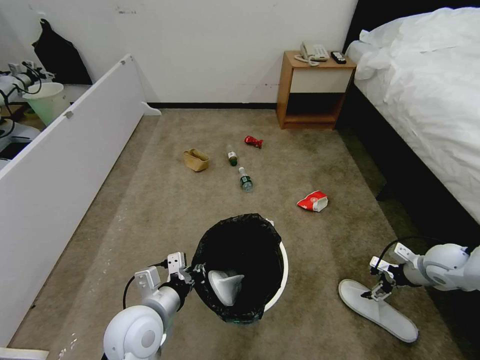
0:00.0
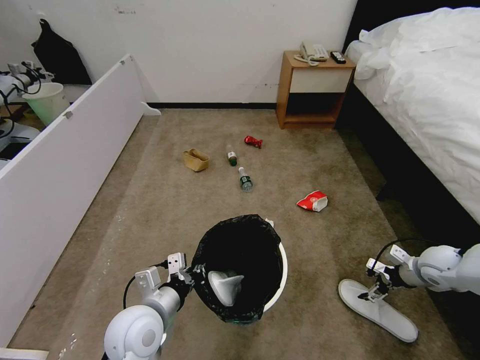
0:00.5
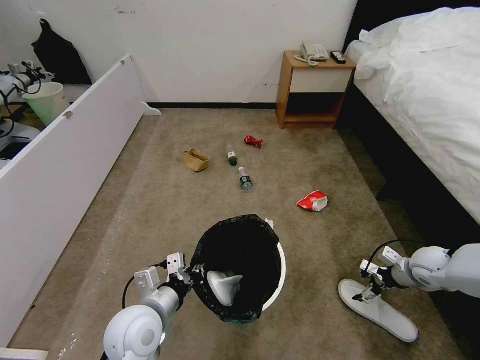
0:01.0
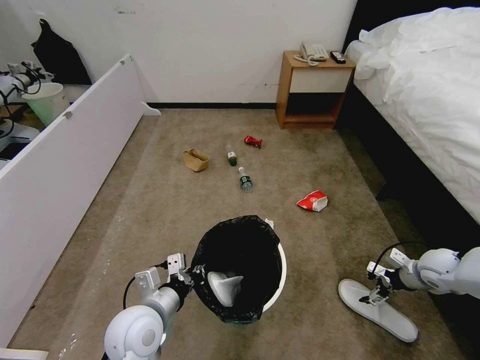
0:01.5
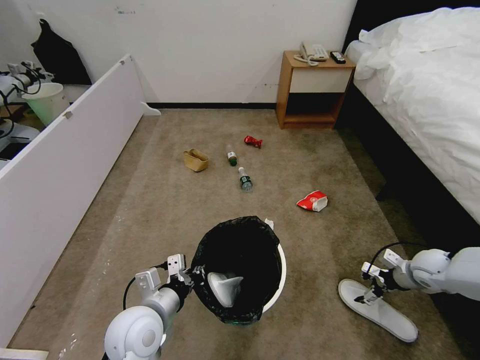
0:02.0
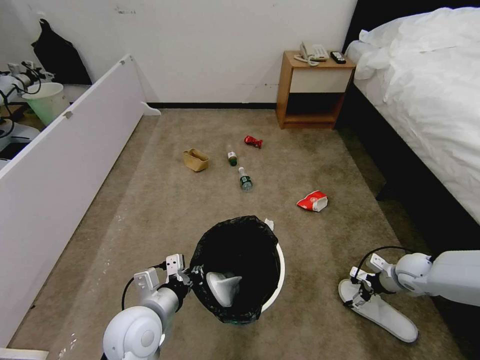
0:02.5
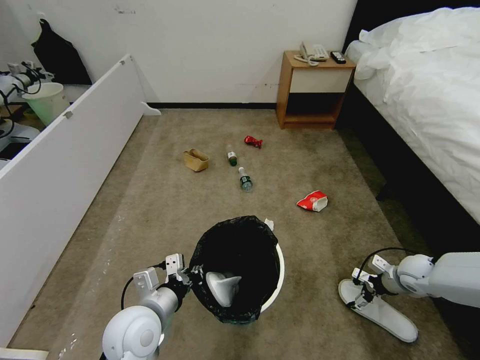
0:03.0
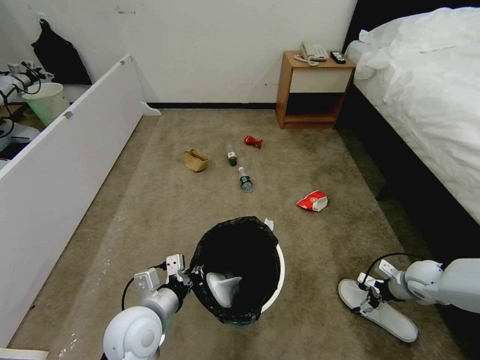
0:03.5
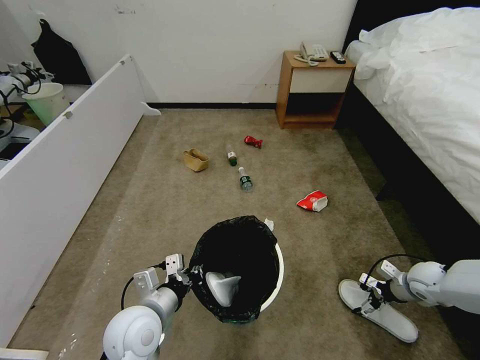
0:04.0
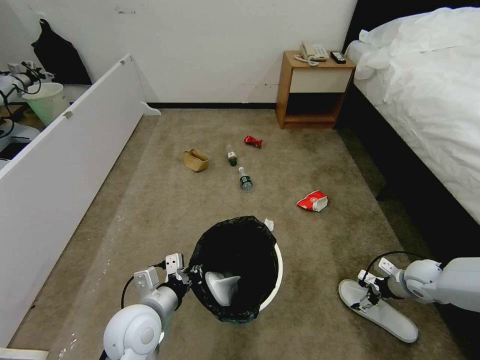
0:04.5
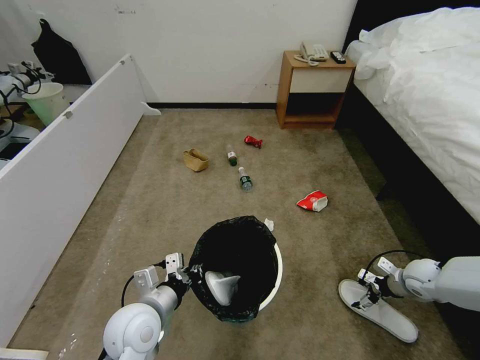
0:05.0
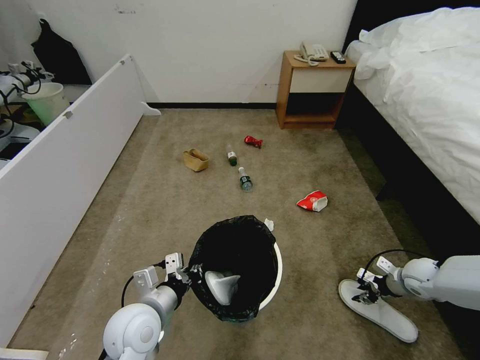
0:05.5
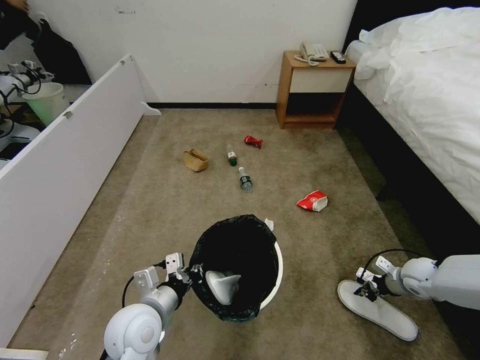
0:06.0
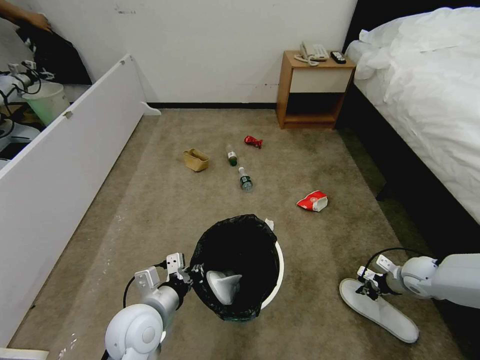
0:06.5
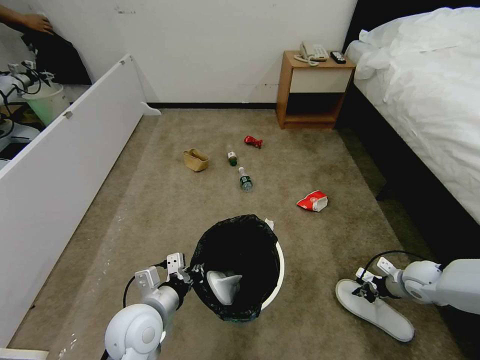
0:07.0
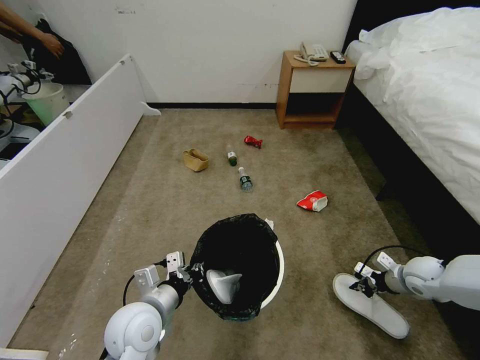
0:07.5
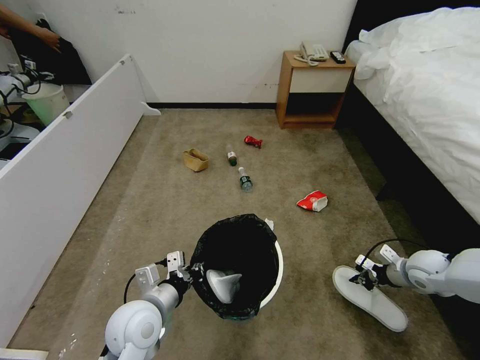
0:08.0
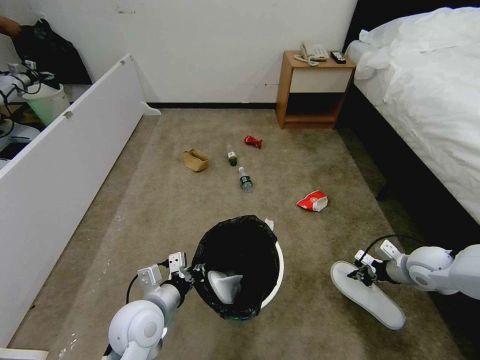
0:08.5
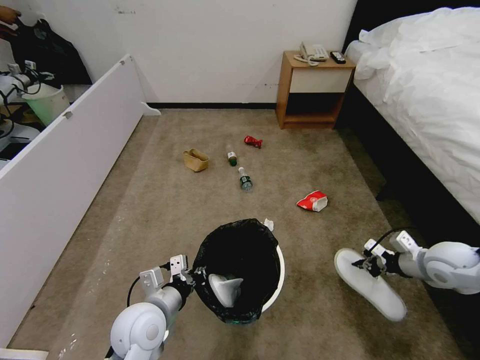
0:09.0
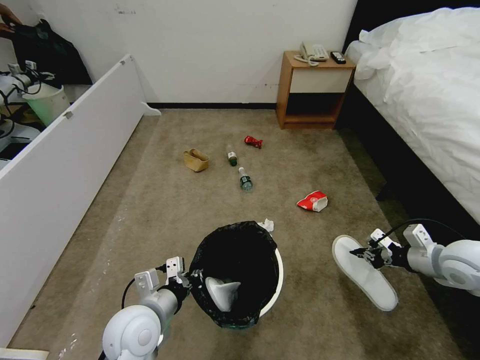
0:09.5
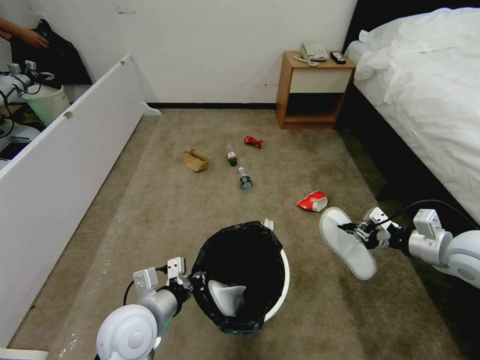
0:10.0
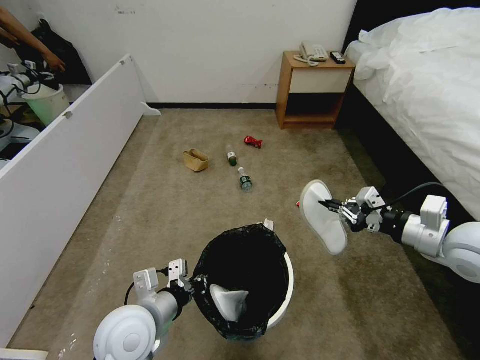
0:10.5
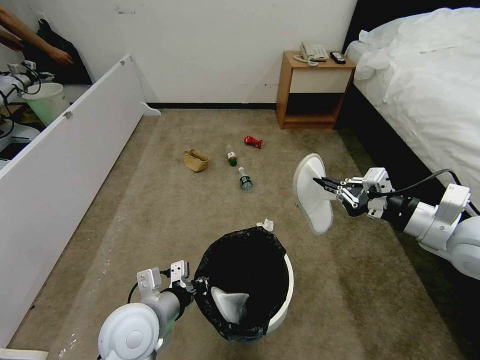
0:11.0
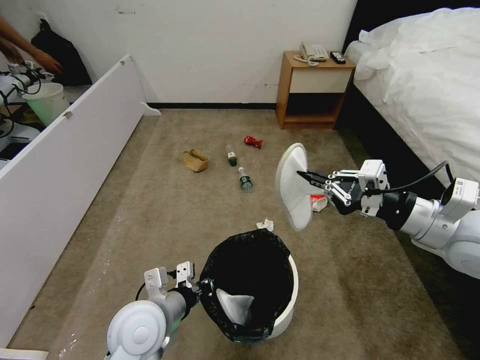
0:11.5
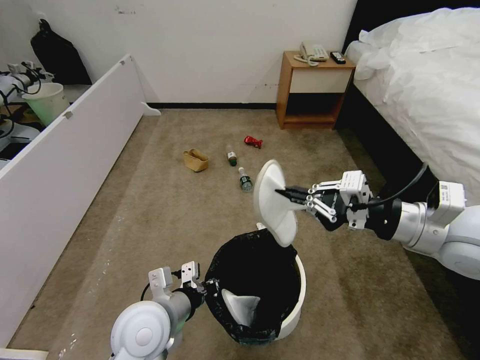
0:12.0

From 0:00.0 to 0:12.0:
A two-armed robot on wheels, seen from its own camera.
Task of the whole recording: Pick up the trash bin, then pick up the garbage from the floor and place it into the trash bin.
From 0:00.0 to 0:02.0: The grippers make only small movements.
From 0:02.0 to 0:04.0: The grippers make only small movements.
From 0:04.0 to 0:06.0: The right gripper closes.
From 0:06.0 to 0:08.0: The right gripper shifts approximately 5 cm upward.
From 0:08.0 to 0:10.0: The right gripper is displaced upward by approximately 15 cm.
From 0:10.0 to 0:12.0: The right gripper shifts about 15 cm to the left and upward.

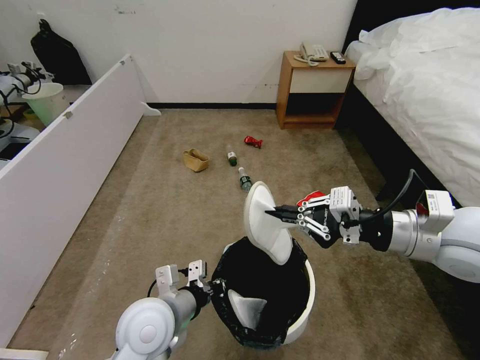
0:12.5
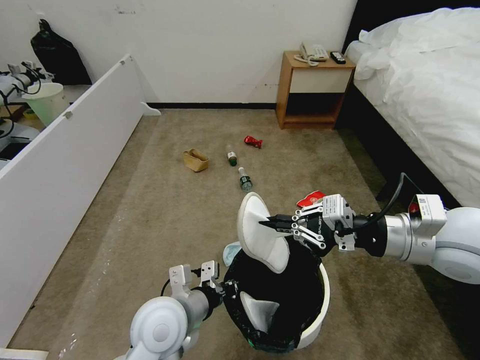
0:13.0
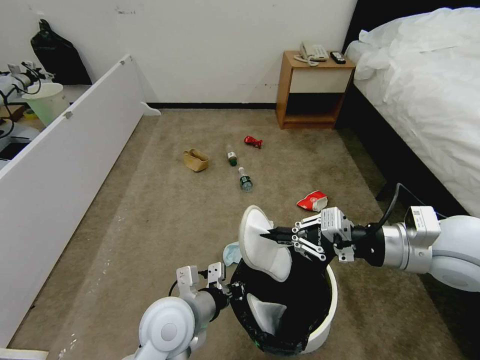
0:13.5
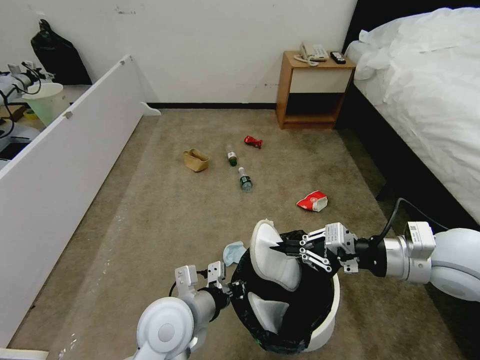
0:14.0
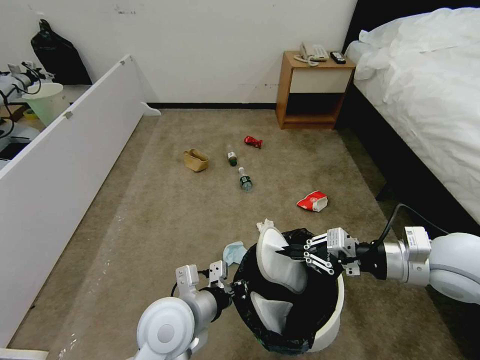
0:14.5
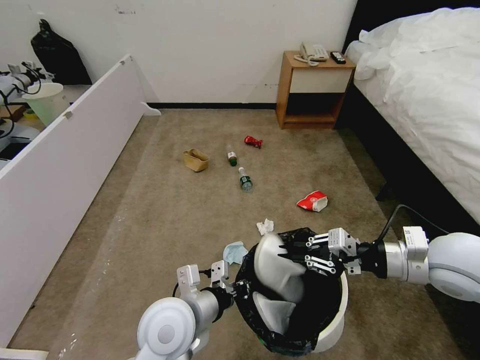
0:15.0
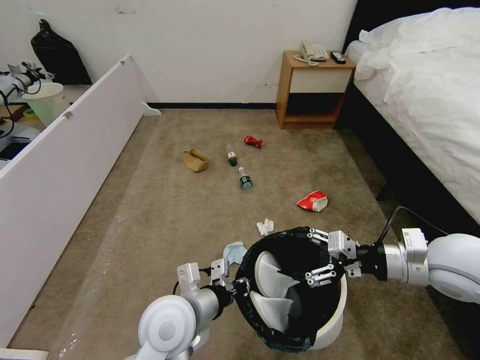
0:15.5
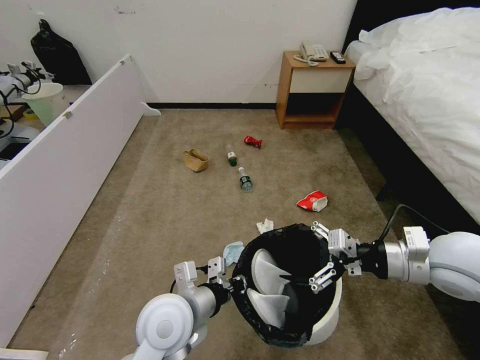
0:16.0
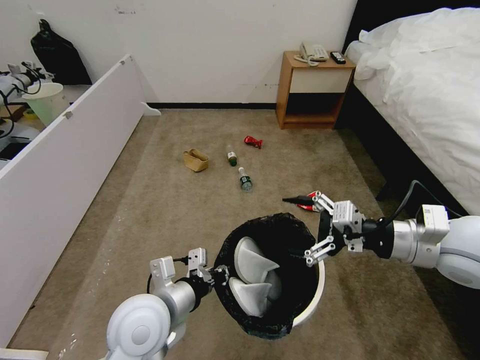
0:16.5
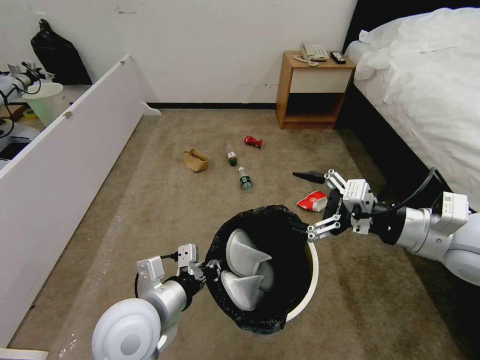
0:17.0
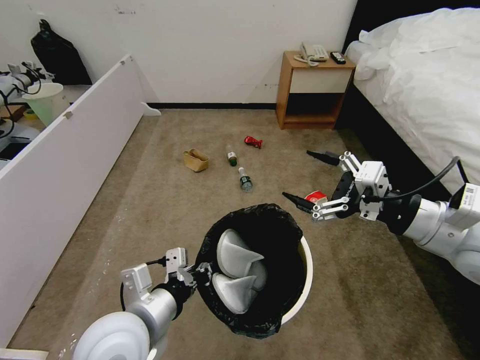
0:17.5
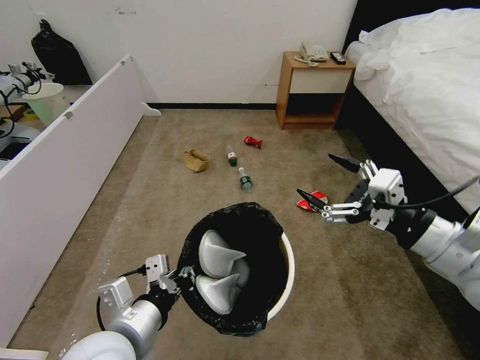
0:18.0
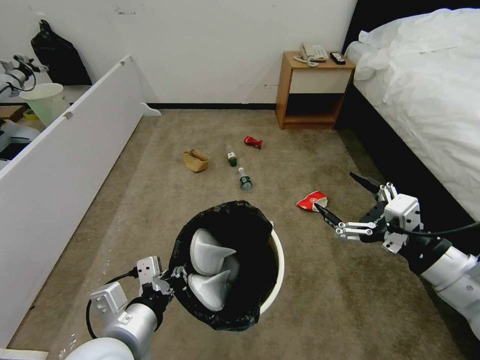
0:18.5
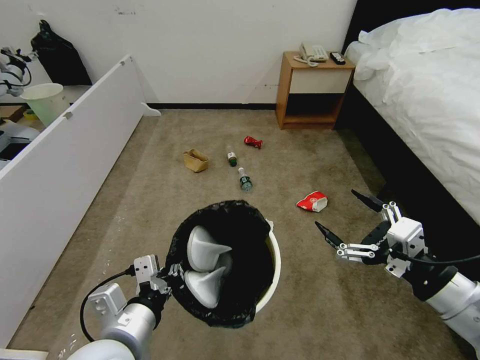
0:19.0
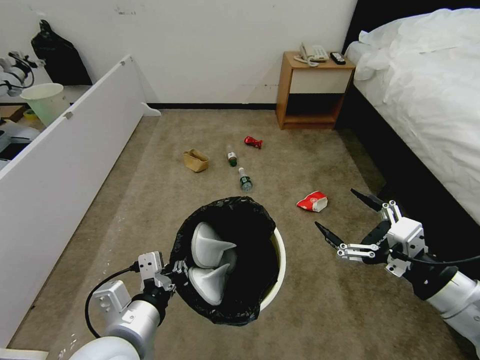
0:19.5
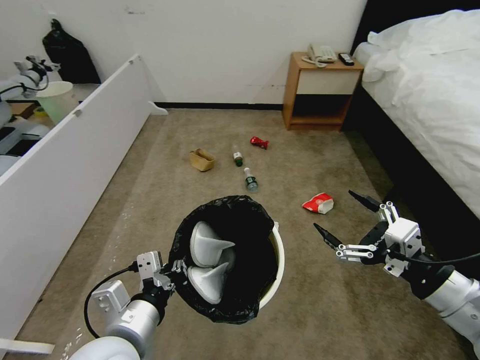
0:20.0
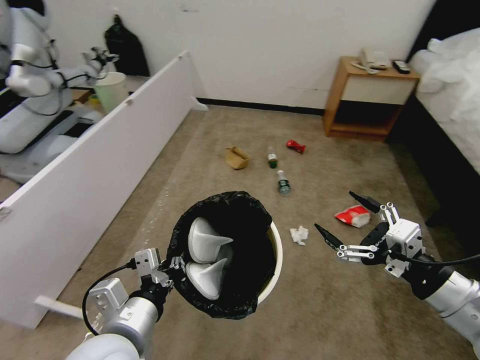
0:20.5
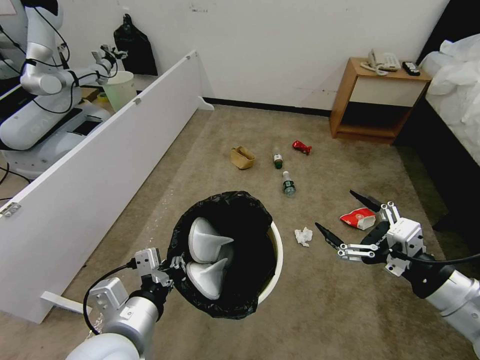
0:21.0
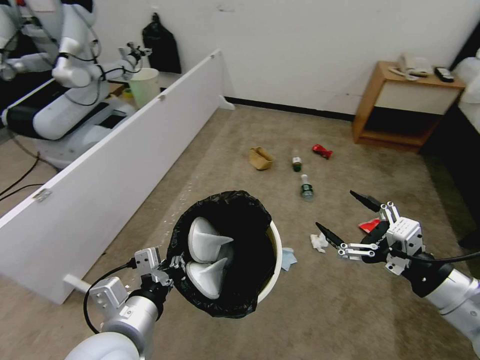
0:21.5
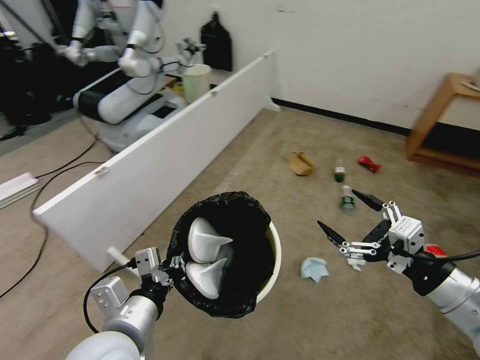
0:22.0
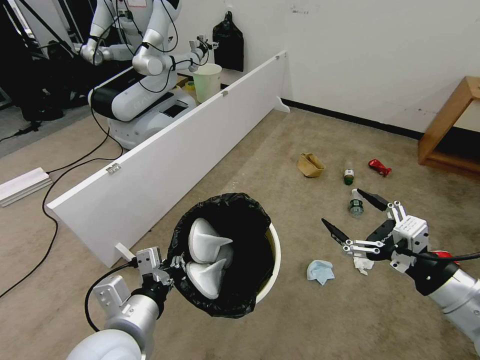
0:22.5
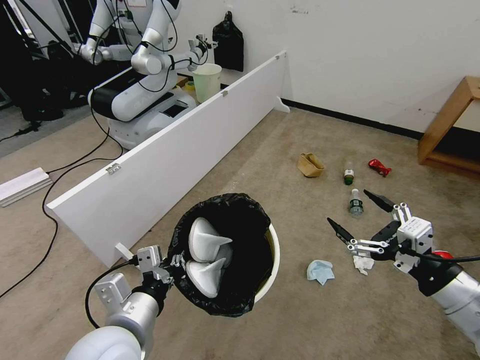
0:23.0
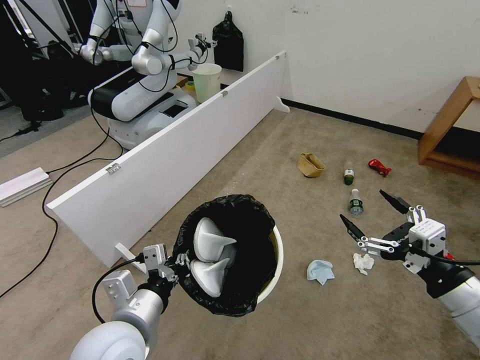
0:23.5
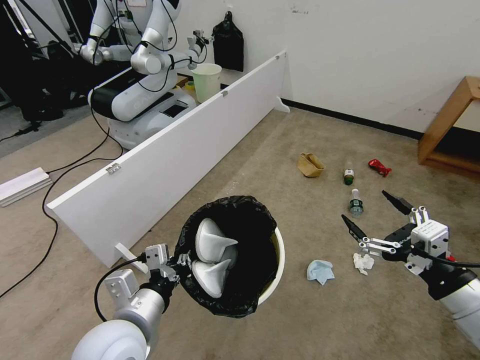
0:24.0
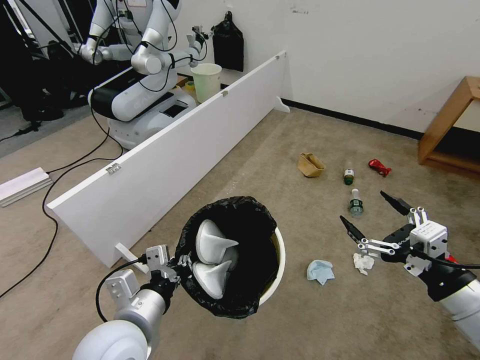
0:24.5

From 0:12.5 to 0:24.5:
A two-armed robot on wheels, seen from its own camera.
Task of the whole recording: Pick up the trash bin, then pick up the garbage from the floor and place it into the trash bin.
From 0:12.5 to 0:14.5: The right gripper goes about 5 cm downward.
From 0:14.5 to 0:16.5: The right gripper opens.
From 0:16.5 to 0:18.5: Both grippers move backward, about 10 cm.
From 0:22.5 to 0:24.5: The grippers stay close to where they were, moving slightly.

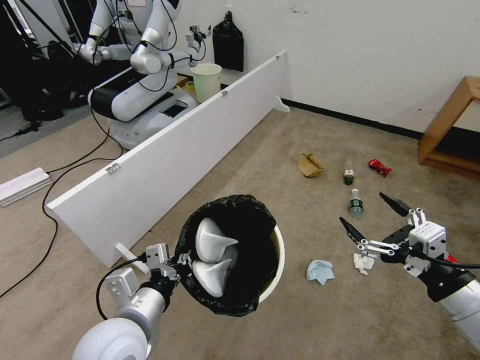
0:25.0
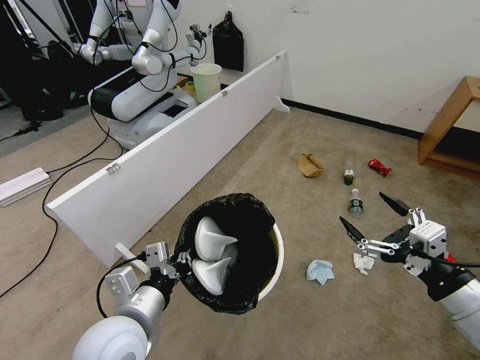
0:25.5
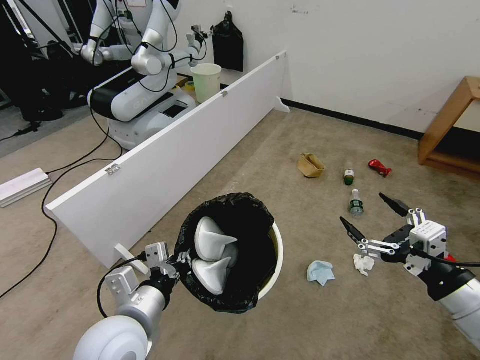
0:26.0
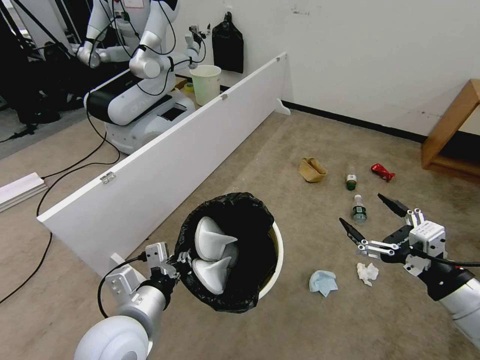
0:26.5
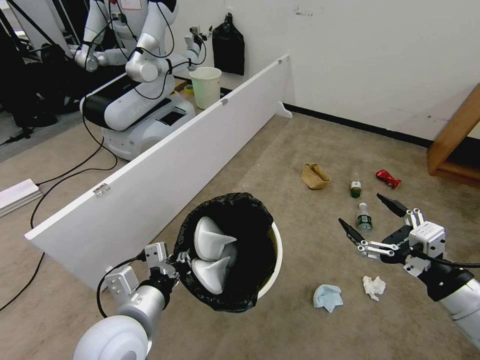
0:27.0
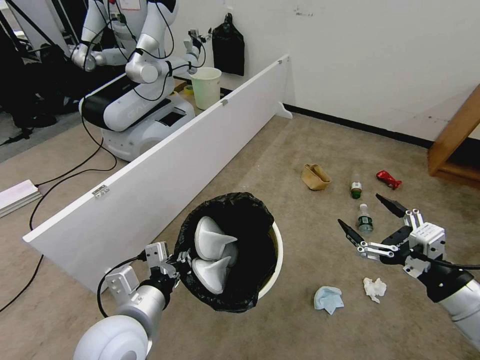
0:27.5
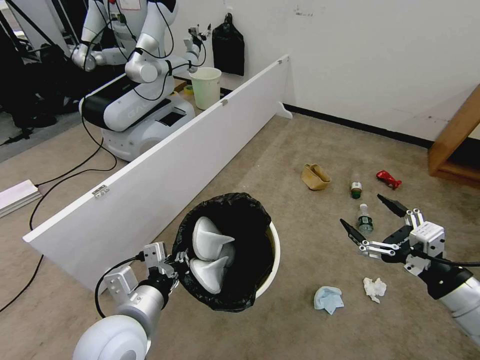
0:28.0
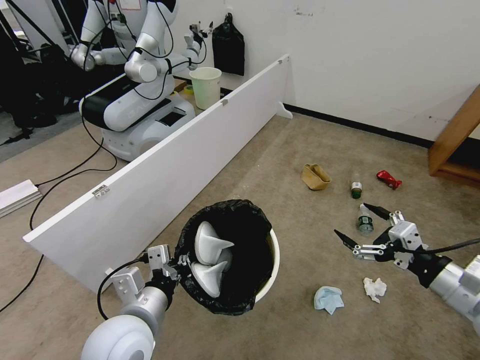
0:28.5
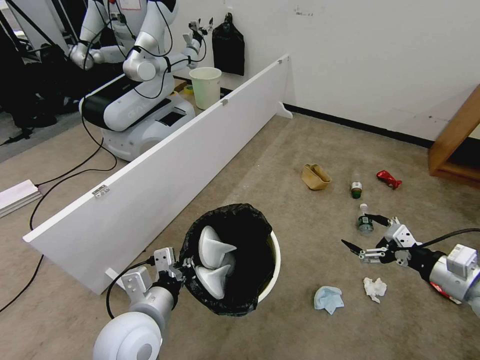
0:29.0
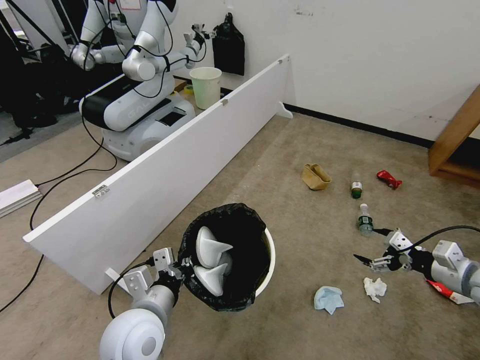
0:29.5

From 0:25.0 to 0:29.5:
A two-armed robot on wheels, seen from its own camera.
Task of the whole recording: Pick up the trash bin, then pick up the garbage from the floor and place it into the trash bin.
From 0:27.0 to 0:29.5: The right gripper goes roughly 15 cm forward, to the right and downward.
